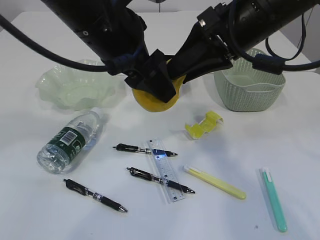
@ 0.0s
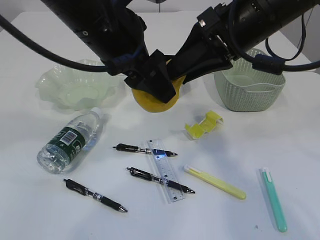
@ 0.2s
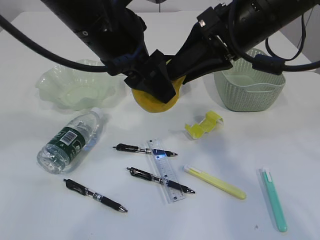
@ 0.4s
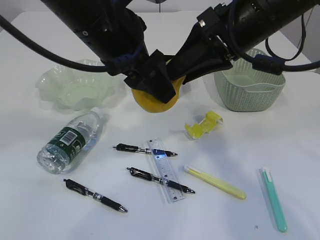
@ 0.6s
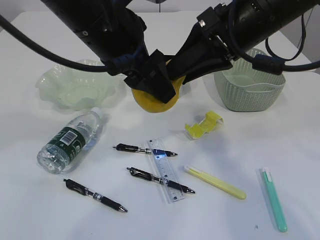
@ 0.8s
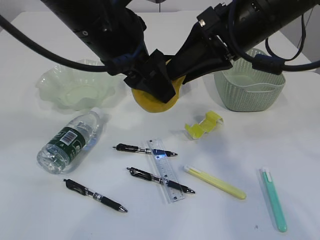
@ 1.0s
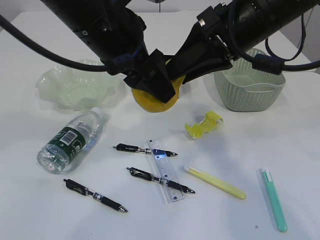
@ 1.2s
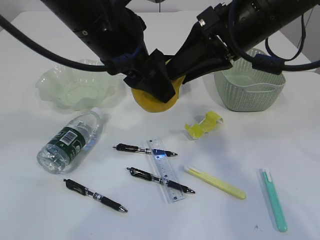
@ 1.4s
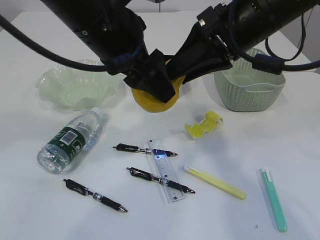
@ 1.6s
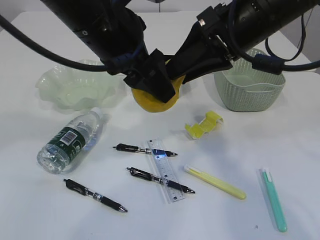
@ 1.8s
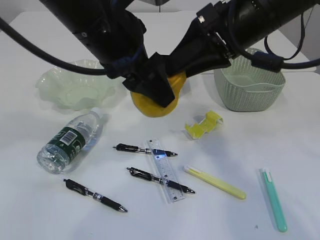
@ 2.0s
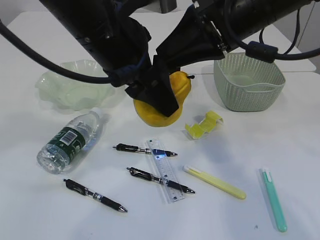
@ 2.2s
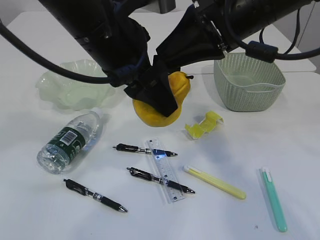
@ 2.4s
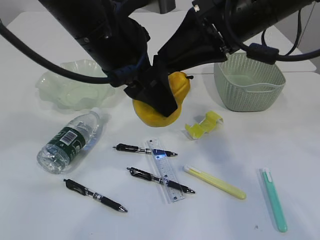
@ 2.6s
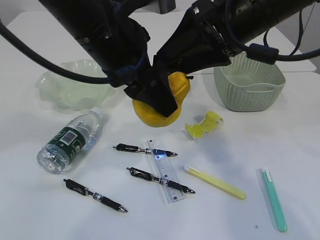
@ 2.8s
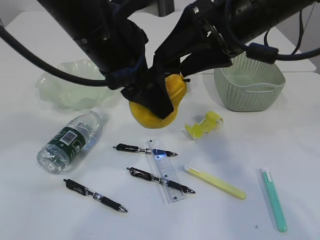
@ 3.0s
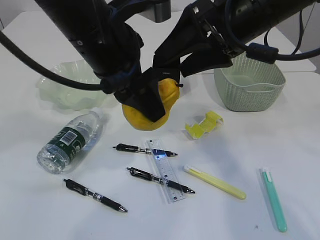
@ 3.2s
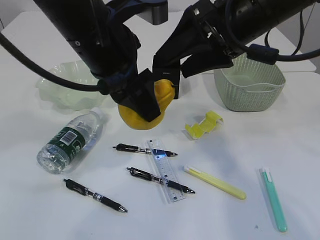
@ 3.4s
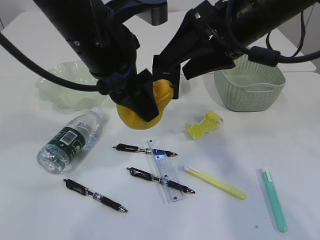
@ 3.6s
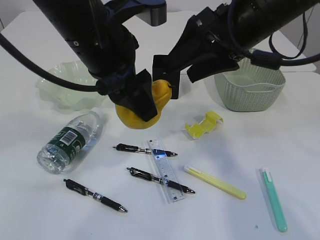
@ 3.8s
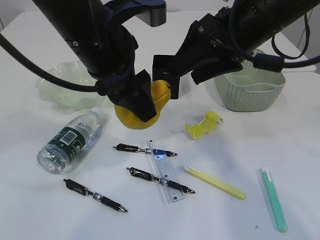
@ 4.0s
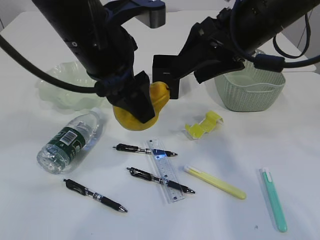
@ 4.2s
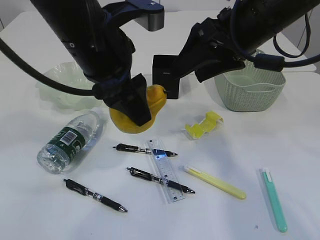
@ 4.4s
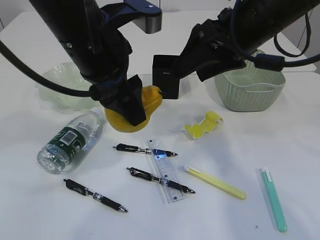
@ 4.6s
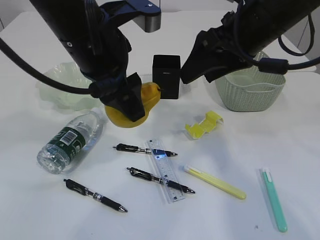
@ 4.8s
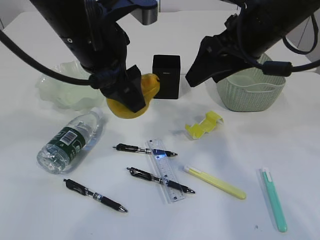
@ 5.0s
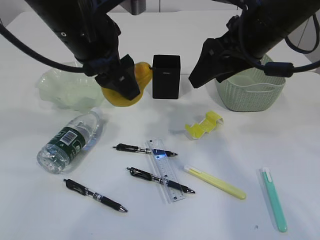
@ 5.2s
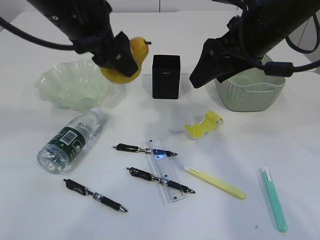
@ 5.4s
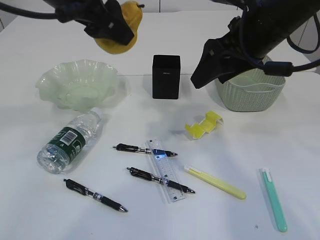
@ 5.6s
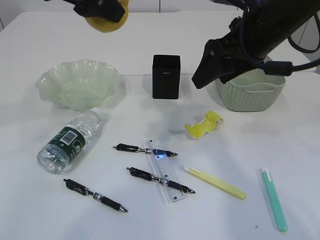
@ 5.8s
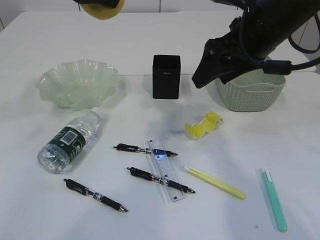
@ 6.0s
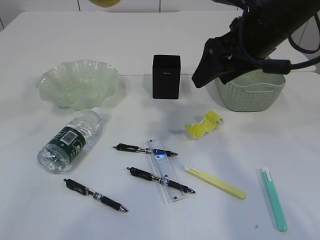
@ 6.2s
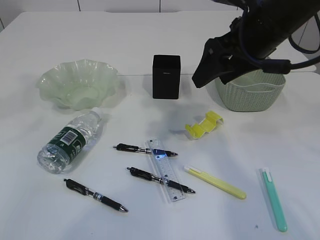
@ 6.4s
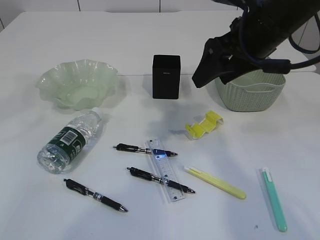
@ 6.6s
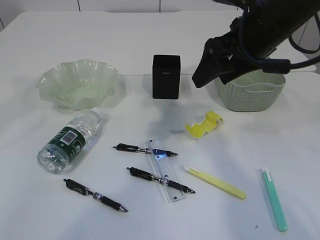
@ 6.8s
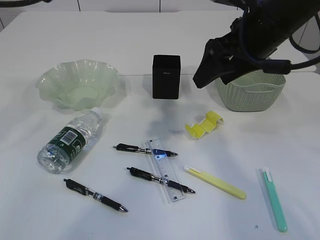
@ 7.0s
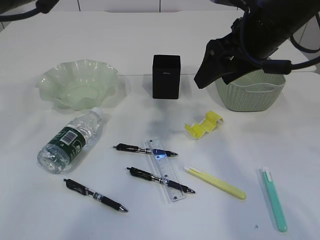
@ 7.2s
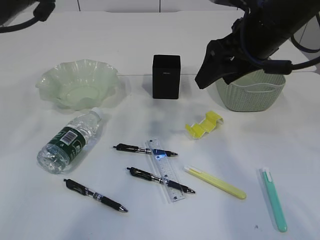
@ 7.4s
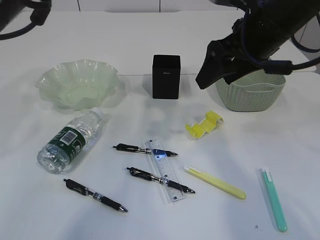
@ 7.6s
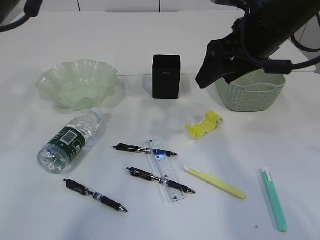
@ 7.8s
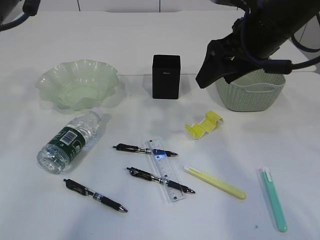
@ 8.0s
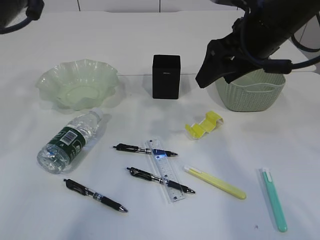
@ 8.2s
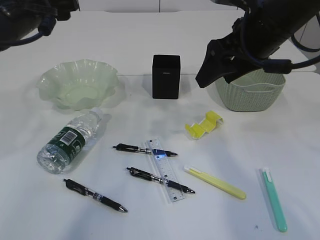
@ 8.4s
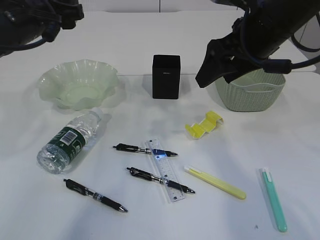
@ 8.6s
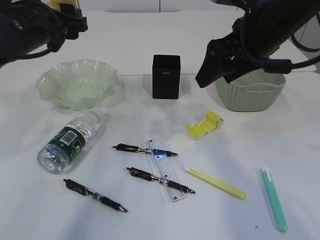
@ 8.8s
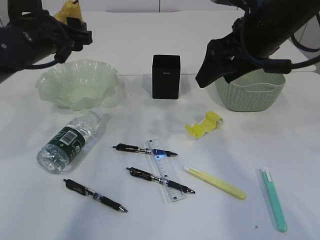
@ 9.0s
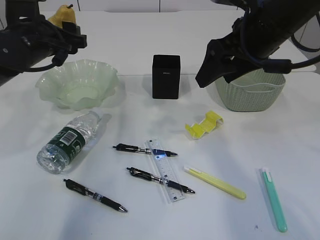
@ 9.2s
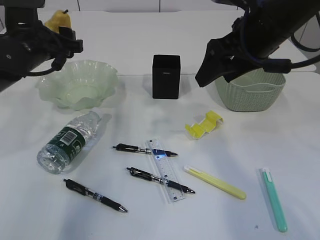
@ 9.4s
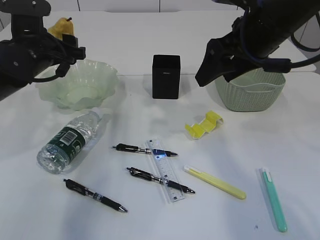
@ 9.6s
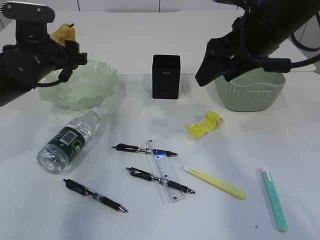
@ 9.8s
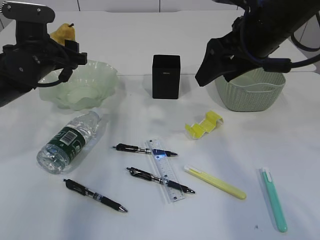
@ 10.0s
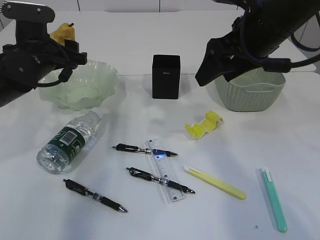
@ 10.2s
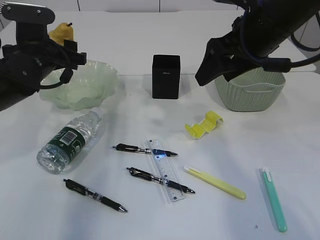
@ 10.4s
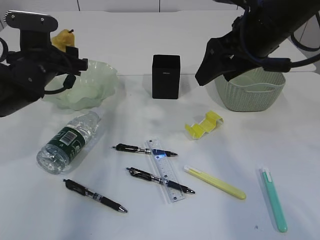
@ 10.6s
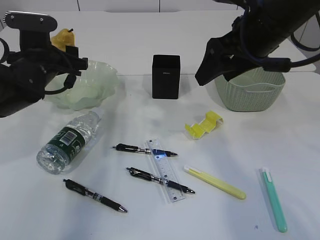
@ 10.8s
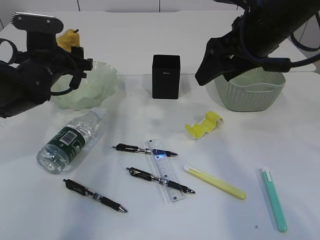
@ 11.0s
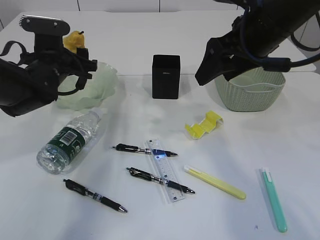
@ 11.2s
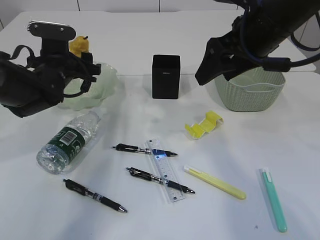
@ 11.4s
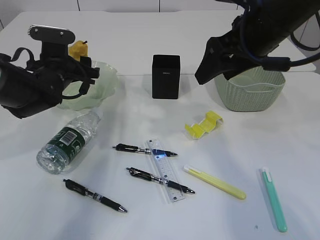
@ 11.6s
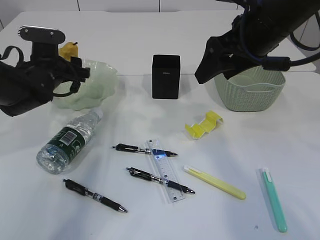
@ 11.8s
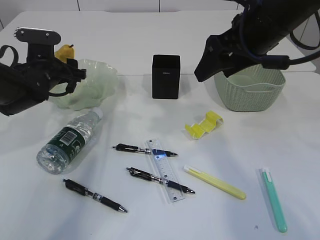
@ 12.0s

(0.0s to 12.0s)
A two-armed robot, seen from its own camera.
Step, 0.0s - 4.0s: Hand over the pear.
0.0s - 1.6s: Both grippers stay put.
1.6s - 3.0s: The right gripper opens its fingers.
3.0s - 4.4s: The grippers stay close to where they were, moving slightly.
4.4s - 6.0s: The left gripper travels upward and to the left by about 10 cm.
6.0s - 7.6s: The left gripper heads downward, covering some 5 cm.
7.6s - 9.0s: The left gripper shifts about 5 cm downward.
9.0s - 10.4s: The left gripper goes roughly 5 cm downward.
10.4s - 12.0s: The left gripper is displaced downward by roughly 5 cm.

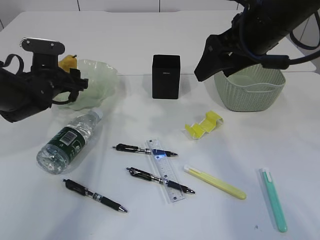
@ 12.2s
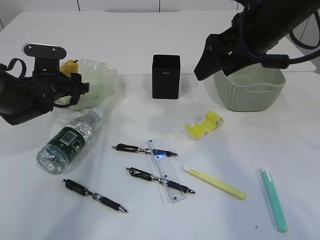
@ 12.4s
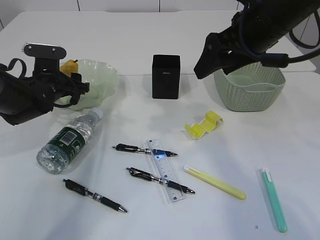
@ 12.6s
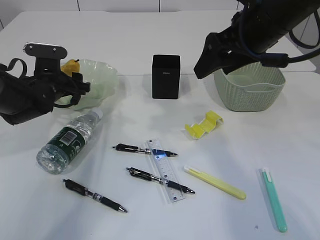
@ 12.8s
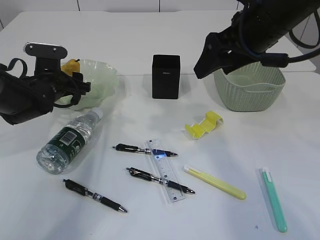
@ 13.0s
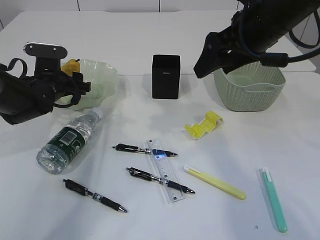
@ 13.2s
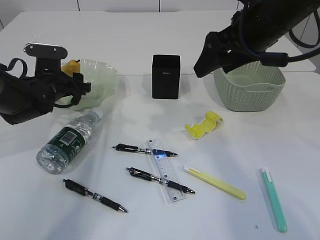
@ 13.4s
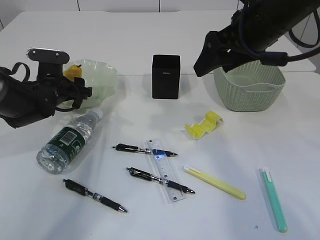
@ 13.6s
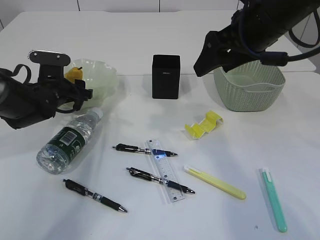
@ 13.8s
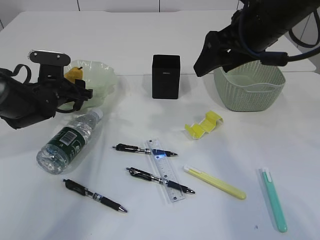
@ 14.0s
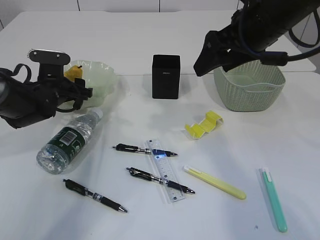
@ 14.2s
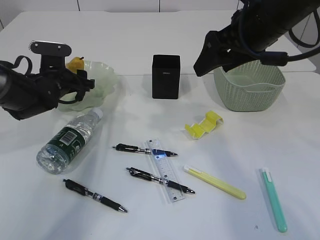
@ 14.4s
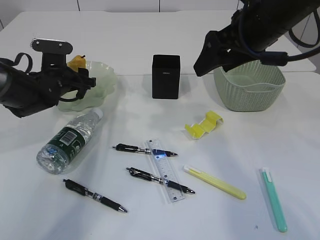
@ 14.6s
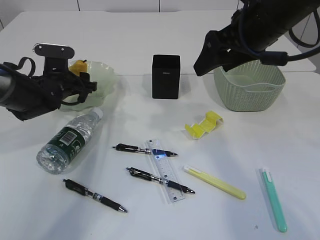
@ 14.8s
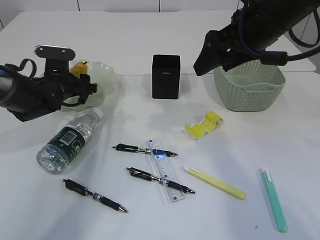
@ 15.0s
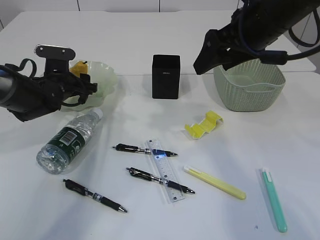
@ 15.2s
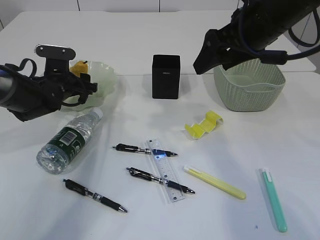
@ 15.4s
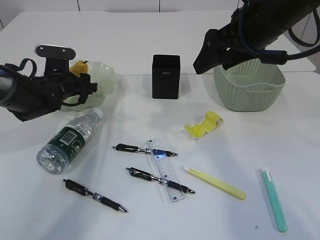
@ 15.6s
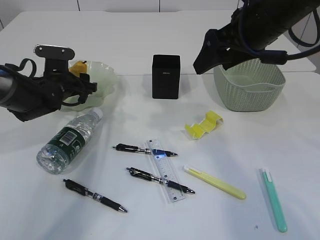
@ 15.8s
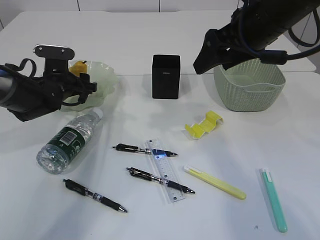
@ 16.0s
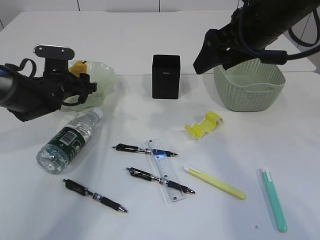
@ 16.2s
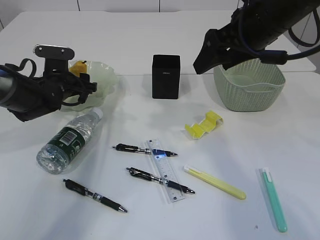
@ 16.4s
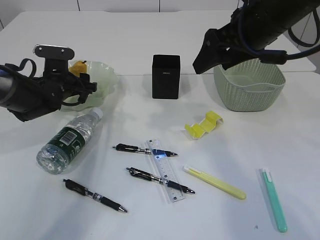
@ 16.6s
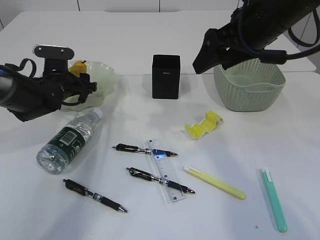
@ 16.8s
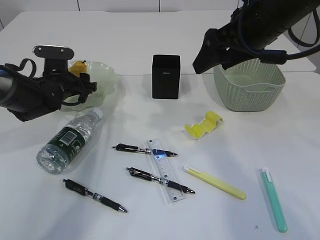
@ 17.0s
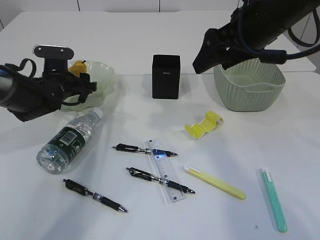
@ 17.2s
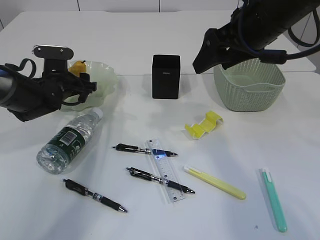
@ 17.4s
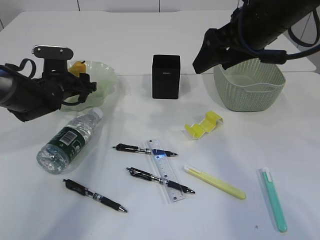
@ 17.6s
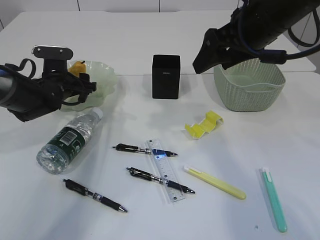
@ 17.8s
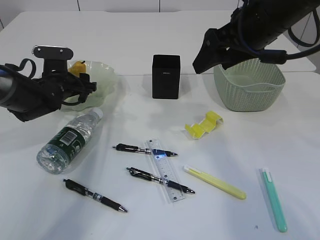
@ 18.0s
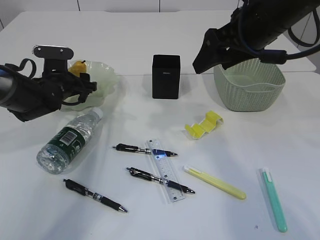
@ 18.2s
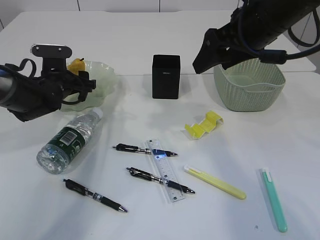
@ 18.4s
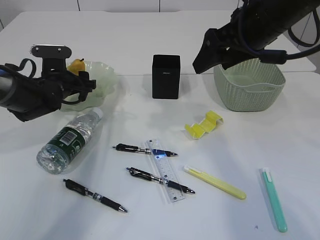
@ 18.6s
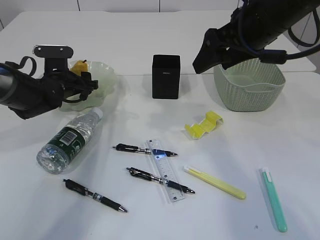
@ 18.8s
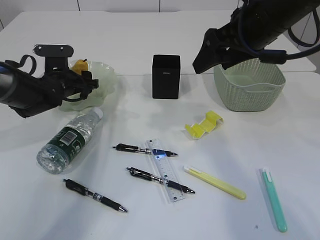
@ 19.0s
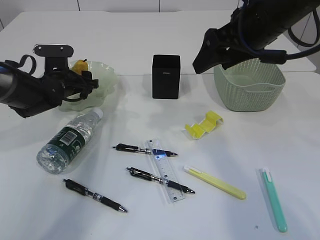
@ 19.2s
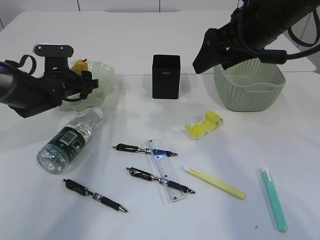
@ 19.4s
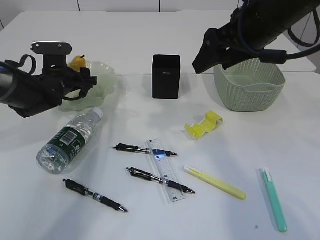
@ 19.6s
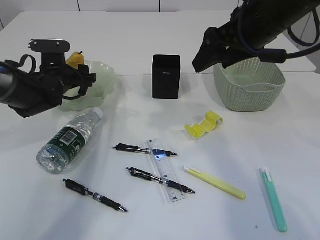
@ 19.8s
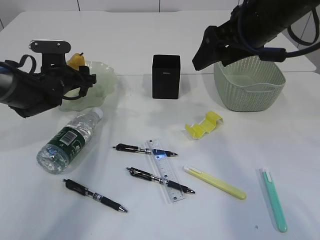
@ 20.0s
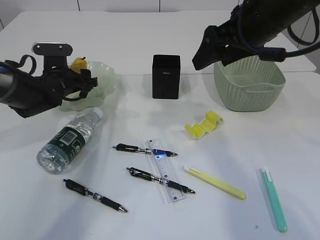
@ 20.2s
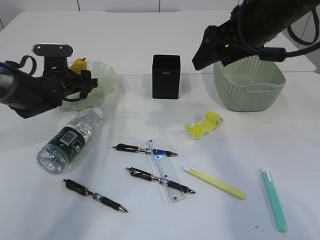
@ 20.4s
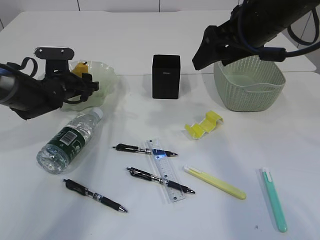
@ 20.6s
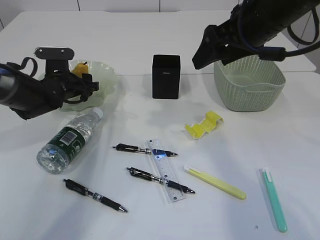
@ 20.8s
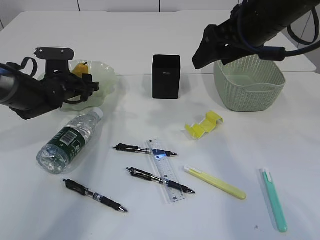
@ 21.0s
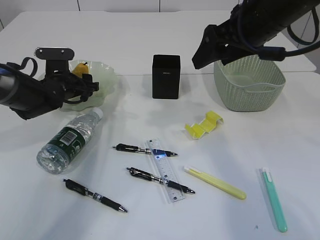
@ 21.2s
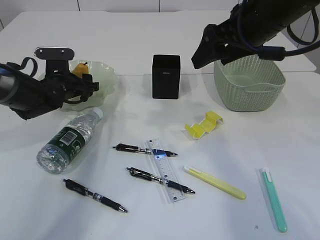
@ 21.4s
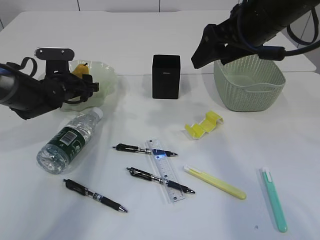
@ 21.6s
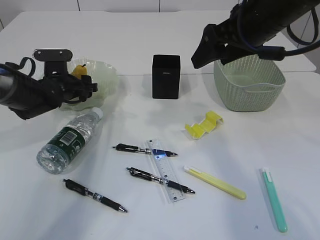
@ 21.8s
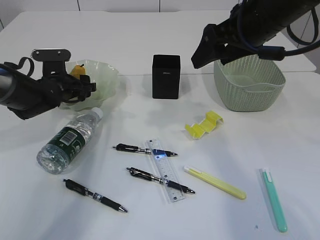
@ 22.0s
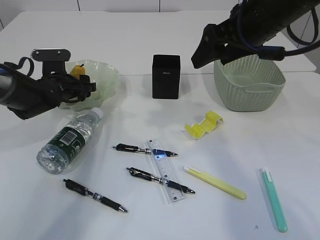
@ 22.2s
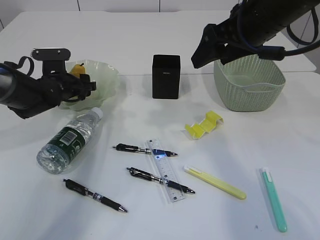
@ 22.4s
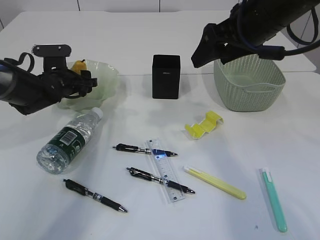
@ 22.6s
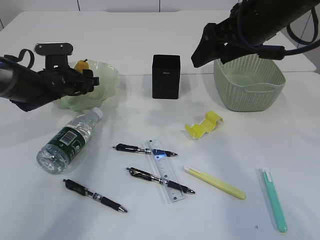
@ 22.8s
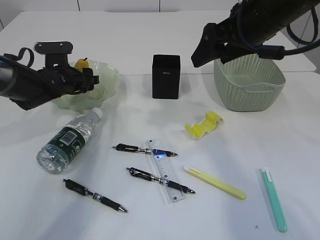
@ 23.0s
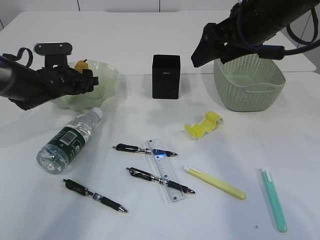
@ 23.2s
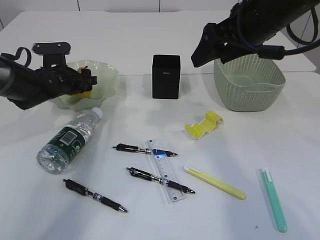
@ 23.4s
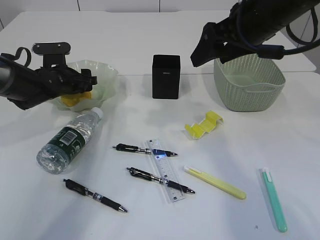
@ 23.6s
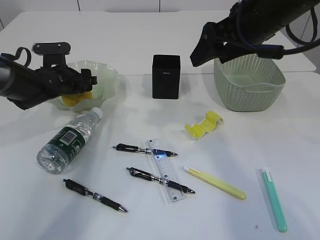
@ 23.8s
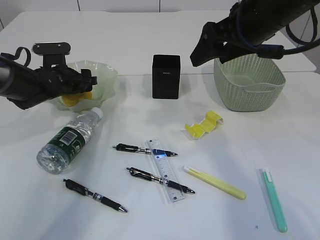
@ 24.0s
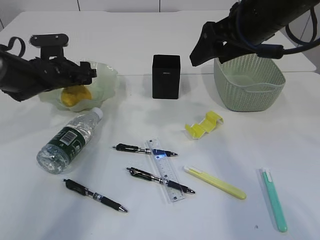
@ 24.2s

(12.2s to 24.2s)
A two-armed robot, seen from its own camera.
12.2s - 15.2s: The grippers move only a little.
15.2s - 18.2s: The two grippers keep their place.
18.2s - 19.8s: Both grippers stay about where they are.
19.8s - 21.2s: The grippers make only small movements.
21.2s - 22.6s: Neither gripper changes place.
22.6s - 24.2s: The grippers move only a little.
